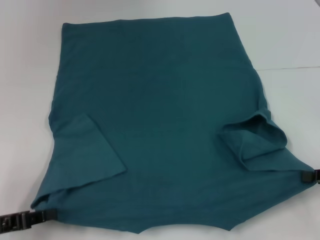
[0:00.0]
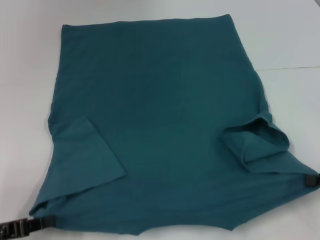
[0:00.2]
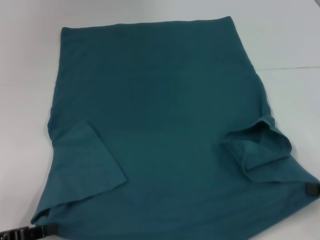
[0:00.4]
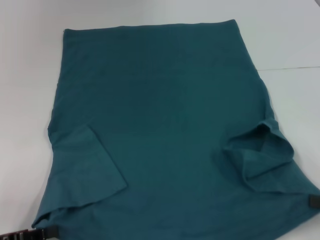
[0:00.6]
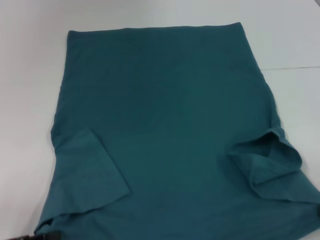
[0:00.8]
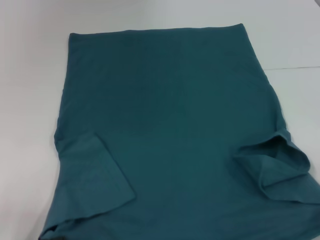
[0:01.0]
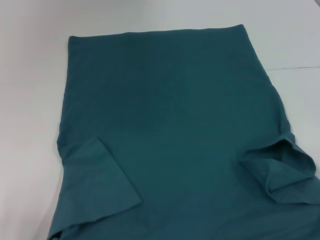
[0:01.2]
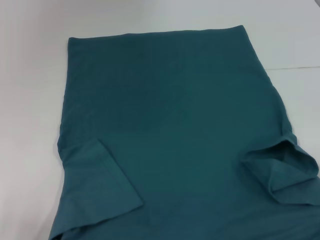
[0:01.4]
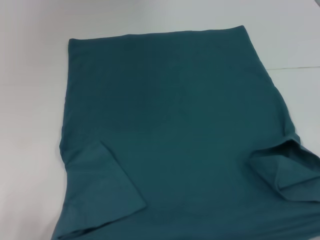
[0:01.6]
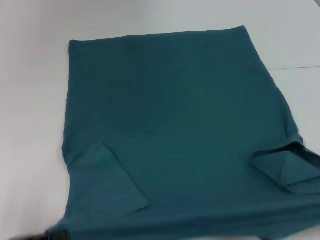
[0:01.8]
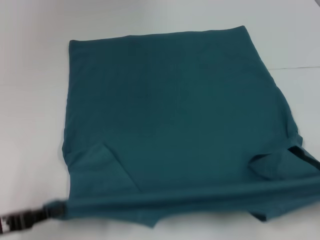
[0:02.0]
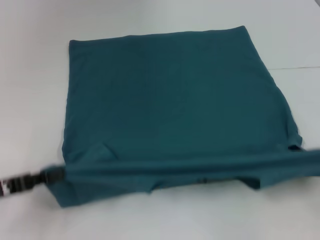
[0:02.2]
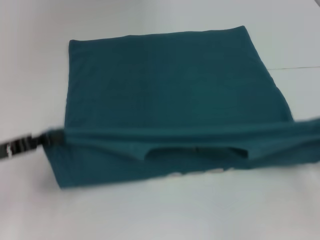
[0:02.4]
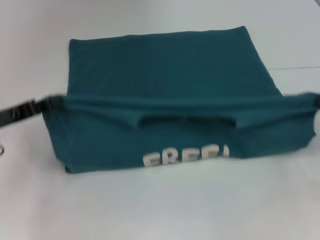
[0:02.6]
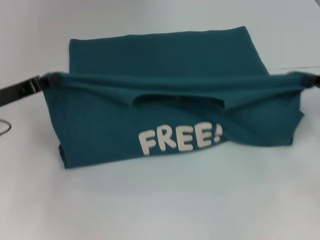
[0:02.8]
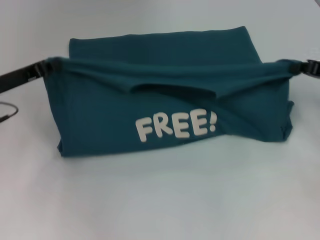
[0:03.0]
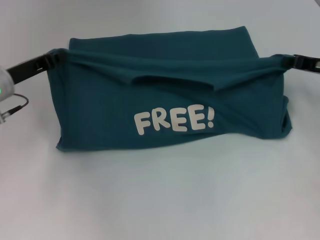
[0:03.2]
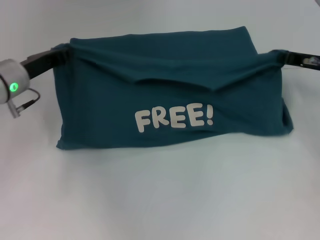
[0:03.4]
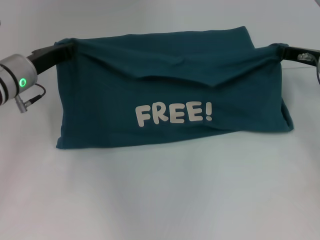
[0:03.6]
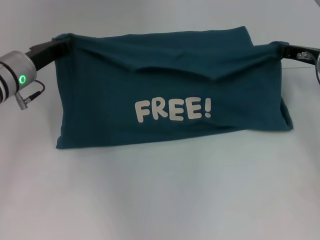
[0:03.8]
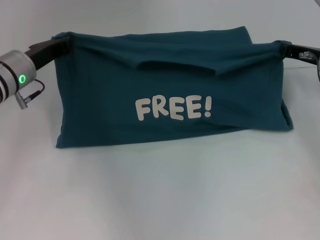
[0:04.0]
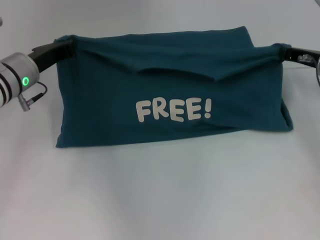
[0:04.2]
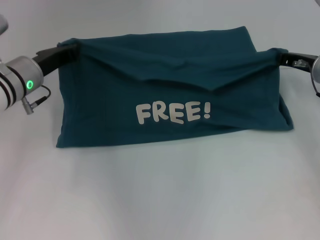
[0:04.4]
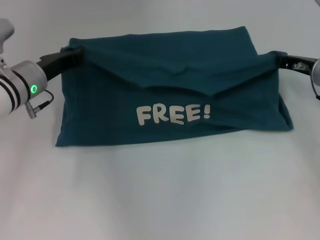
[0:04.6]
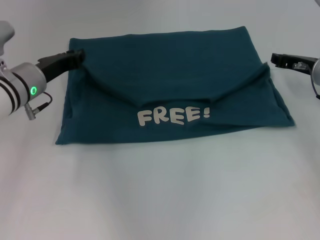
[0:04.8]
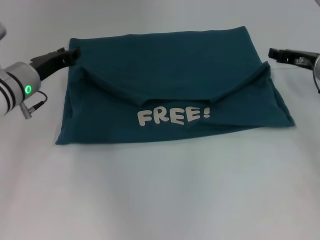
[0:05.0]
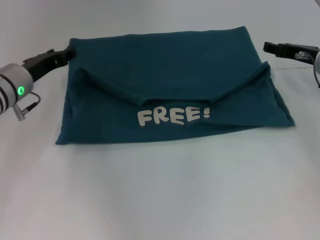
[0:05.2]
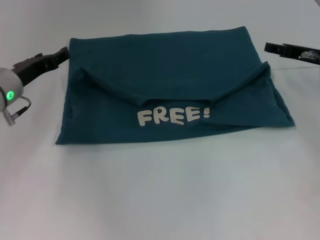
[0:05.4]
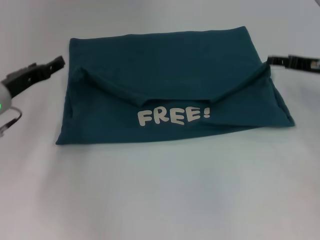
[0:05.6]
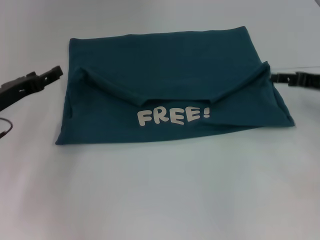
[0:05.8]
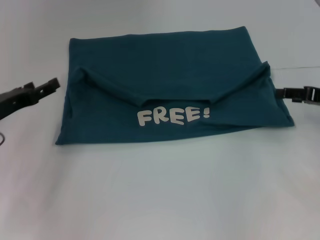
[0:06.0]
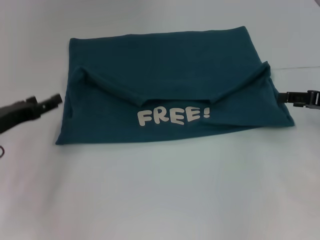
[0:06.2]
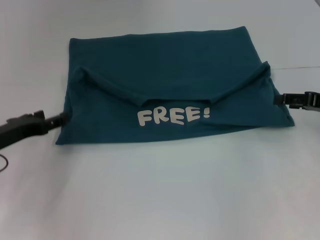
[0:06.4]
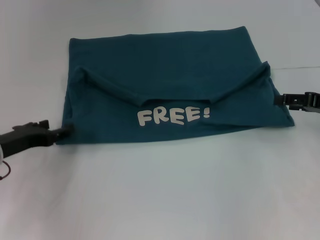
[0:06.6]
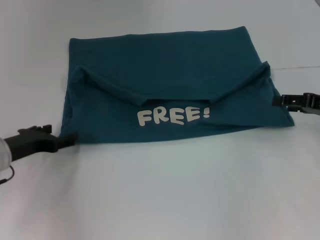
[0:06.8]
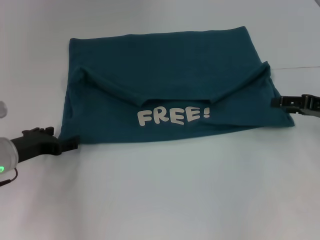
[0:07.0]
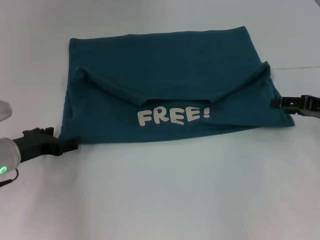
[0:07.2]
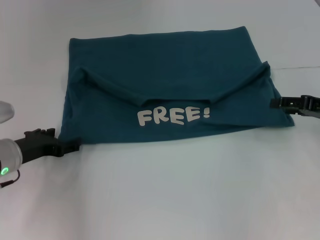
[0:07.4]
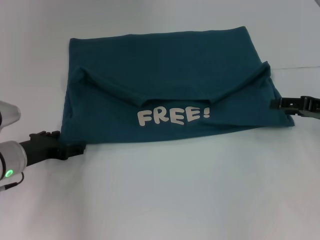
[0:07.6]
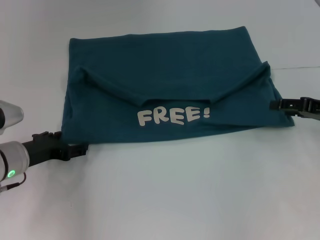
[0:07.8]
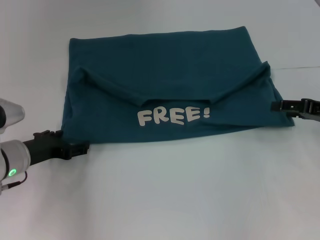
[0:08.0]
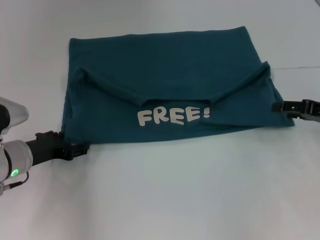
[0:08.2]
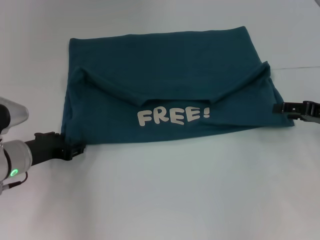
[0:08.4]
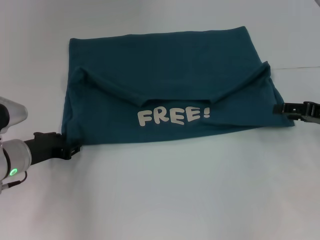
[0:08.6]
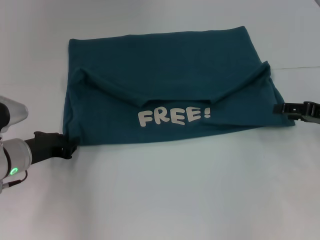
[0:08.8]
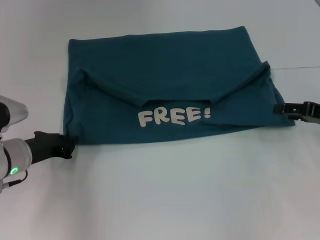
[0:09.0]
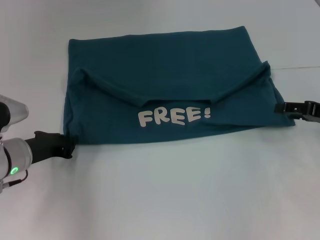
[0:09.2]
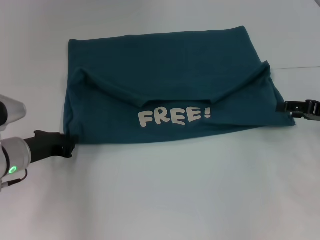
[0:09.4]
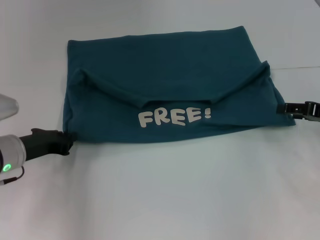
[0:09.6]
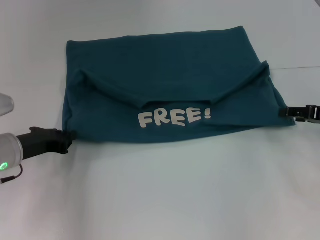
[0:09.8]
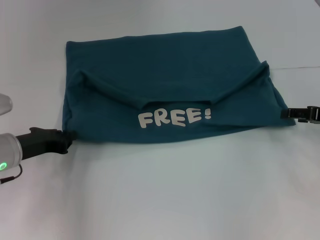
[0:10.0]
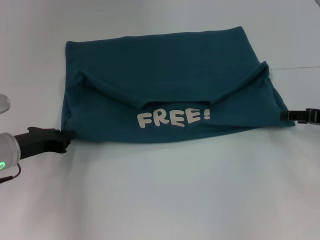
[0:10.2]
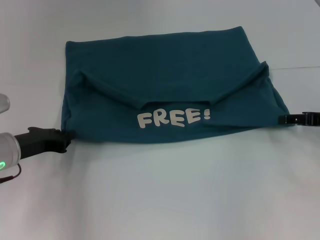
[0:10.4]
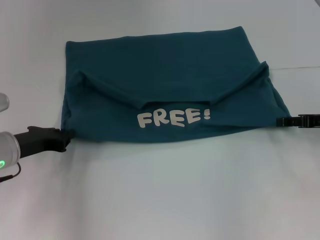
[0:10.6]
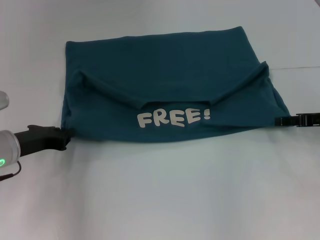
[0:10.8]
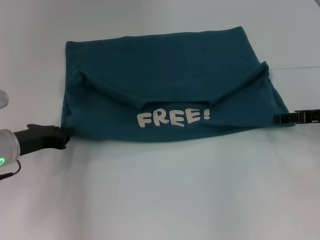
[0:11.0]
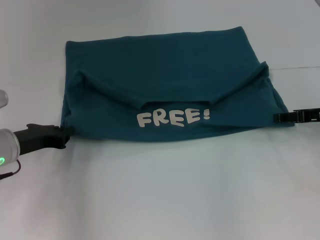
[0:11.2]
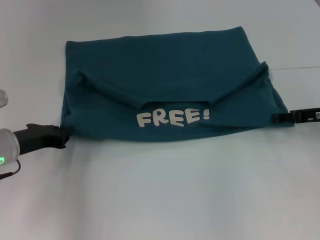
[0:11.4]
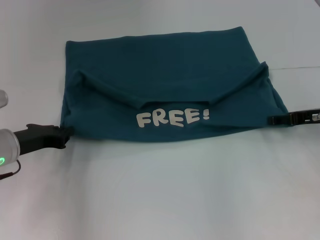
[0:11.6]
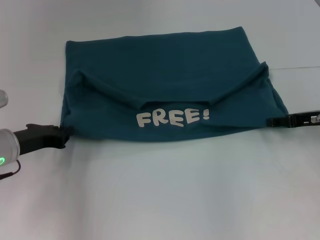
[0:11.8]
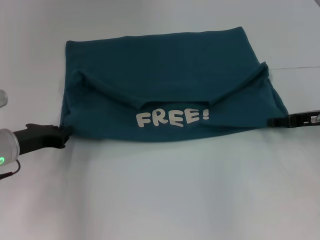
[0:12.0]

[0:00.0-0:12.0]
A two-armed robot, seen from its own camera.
Step, 0:00.0 to 0:05.0: Fold the clothes to the left.
Step, 0:00.0 to 0:05.0: Fold the clothes to the right.
0:00.0 to 0:01.6: The right gripper goes approximately 10 cm backward, while the left gripper moves backward, roughly 5 cm.
0:01.6 to 0:03.0: The left gripper goes about 25 cm forward and upward, while the right gripper is displaced forward by some 20 cm.
0:03.0 to 0:04.4: The right gripper is displaced to the left by some 5 cm; the left gripper moves to the right, some 5 cm.
0:04.4 to 0:06.0: The left gripper travels to the left and backward by approximately 10 cm, and opens, while the right gripper goes roughly 10 cm backward and to the right, and opens its fingers.
0:06.0 to 0:07.6: The left gripper ends up roughly 5 cm from where it was.
0:07.6 to 0:09.0: The left gripper closes up.
0:09.0 to 0:10.4: The grippers stay close to where they were, moving slightly.
0:10.4 to 0:12.0: There are only small adjustments of the grippers.

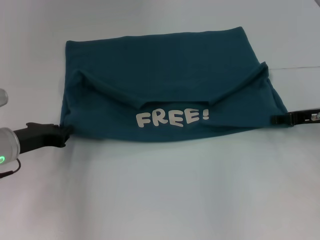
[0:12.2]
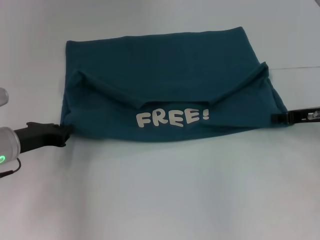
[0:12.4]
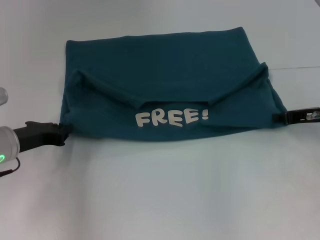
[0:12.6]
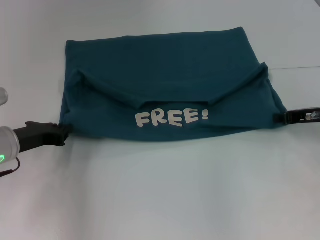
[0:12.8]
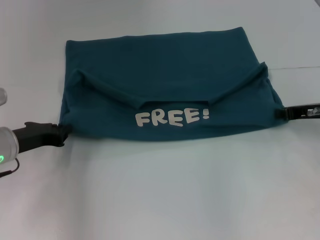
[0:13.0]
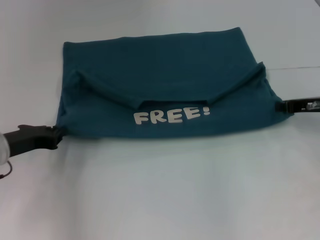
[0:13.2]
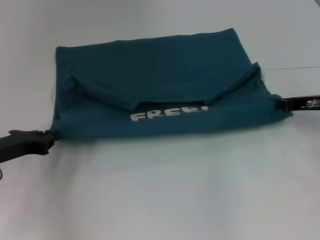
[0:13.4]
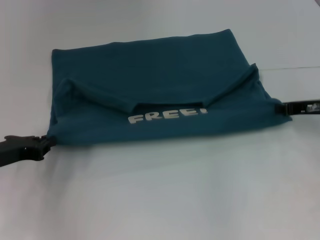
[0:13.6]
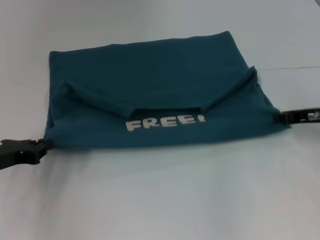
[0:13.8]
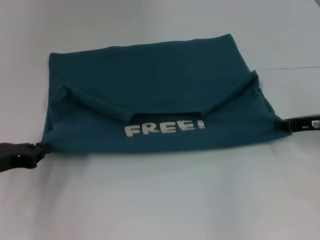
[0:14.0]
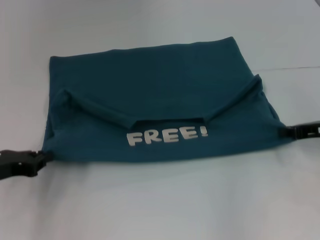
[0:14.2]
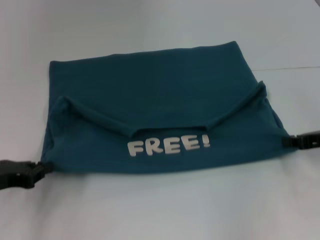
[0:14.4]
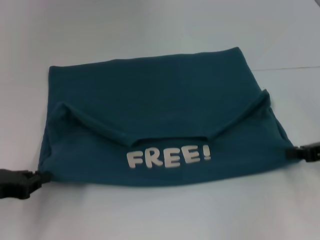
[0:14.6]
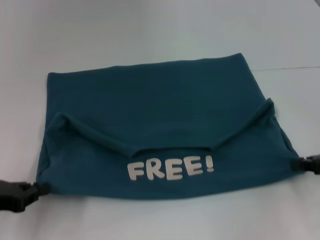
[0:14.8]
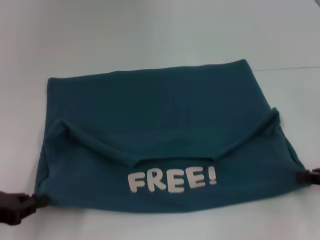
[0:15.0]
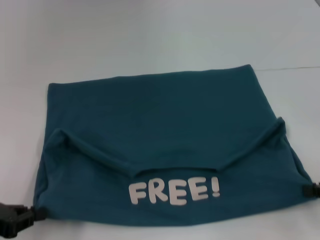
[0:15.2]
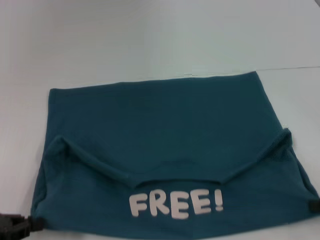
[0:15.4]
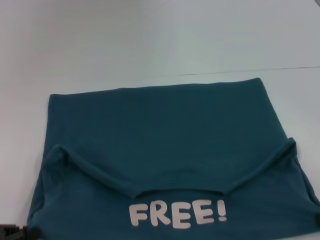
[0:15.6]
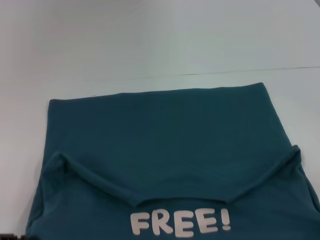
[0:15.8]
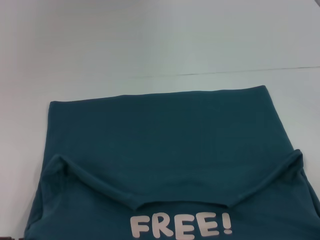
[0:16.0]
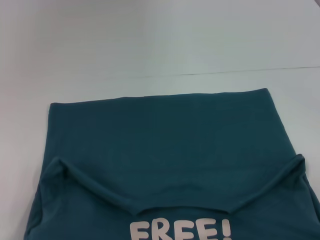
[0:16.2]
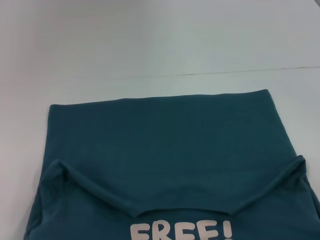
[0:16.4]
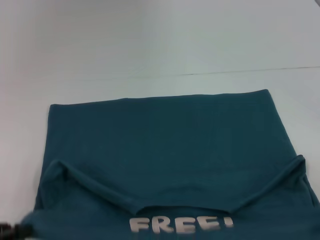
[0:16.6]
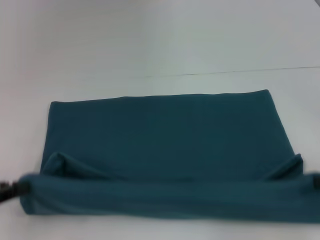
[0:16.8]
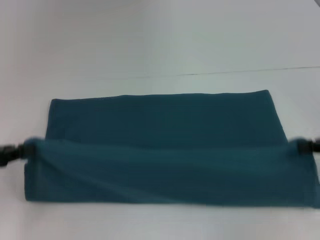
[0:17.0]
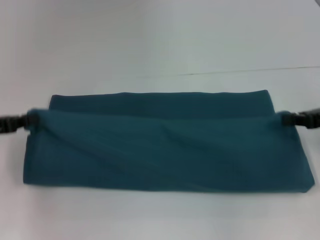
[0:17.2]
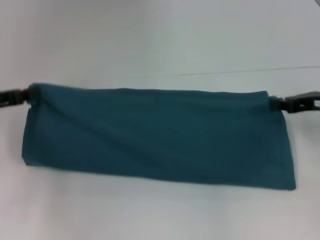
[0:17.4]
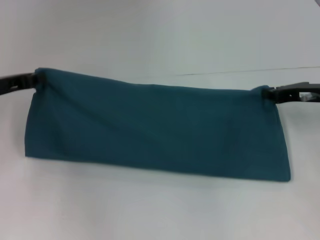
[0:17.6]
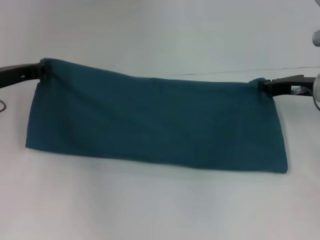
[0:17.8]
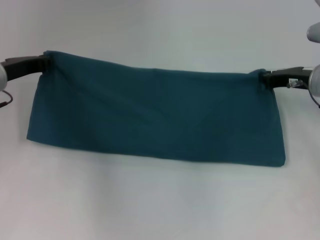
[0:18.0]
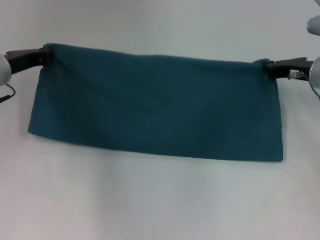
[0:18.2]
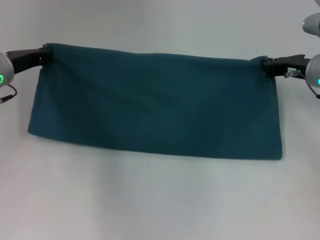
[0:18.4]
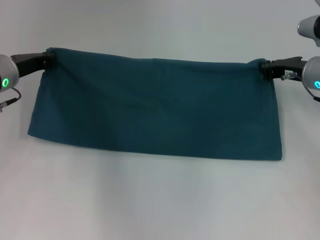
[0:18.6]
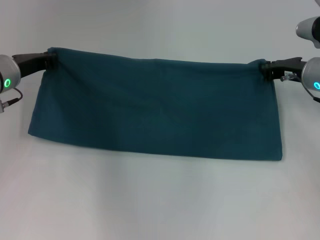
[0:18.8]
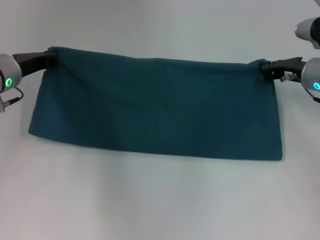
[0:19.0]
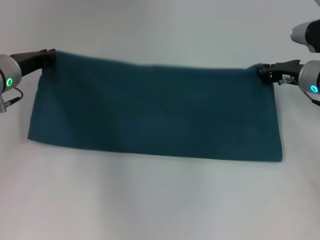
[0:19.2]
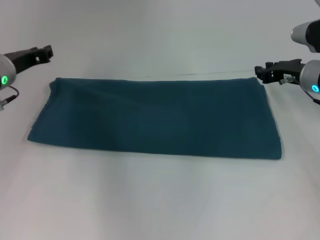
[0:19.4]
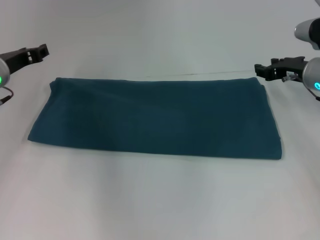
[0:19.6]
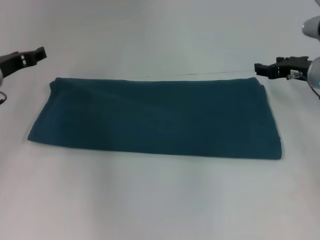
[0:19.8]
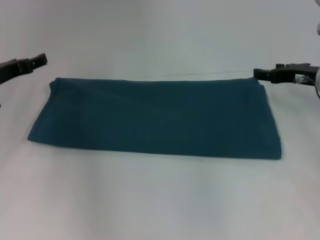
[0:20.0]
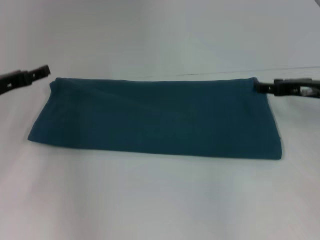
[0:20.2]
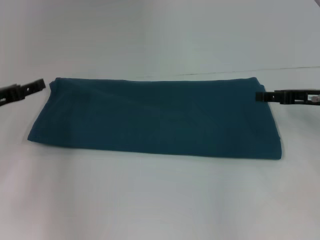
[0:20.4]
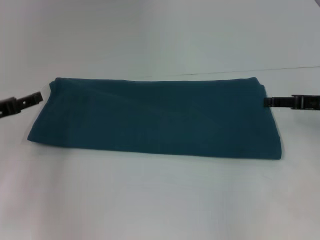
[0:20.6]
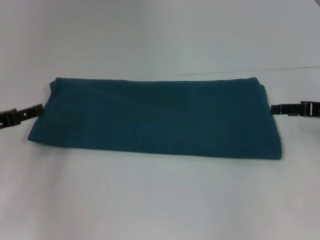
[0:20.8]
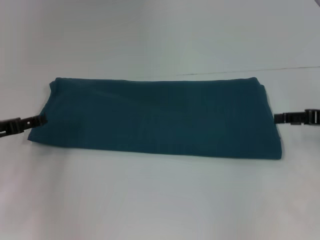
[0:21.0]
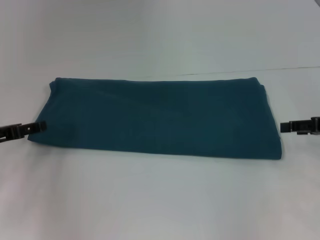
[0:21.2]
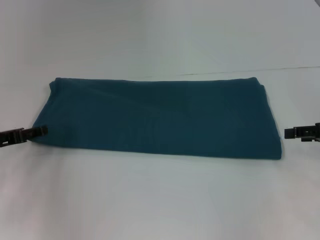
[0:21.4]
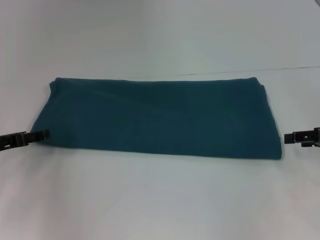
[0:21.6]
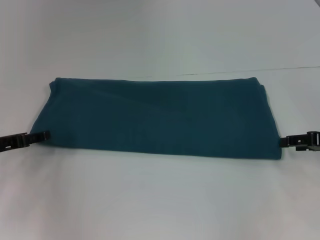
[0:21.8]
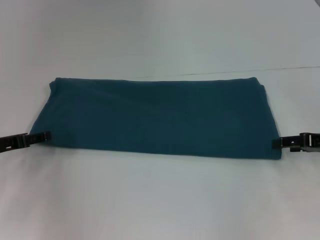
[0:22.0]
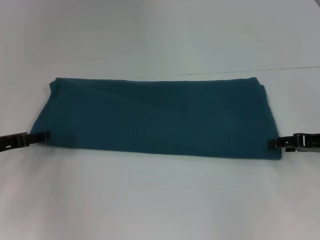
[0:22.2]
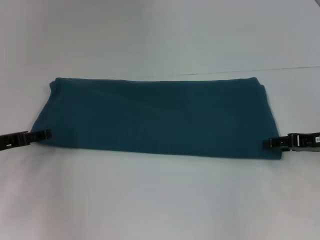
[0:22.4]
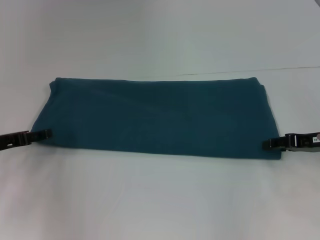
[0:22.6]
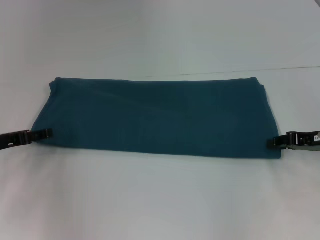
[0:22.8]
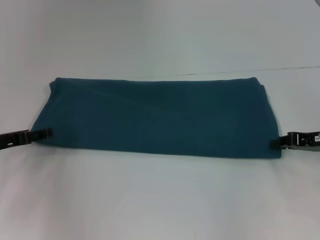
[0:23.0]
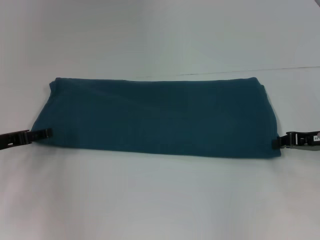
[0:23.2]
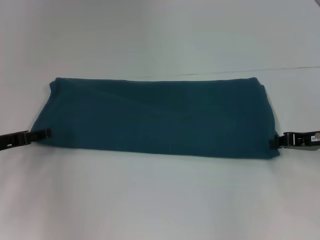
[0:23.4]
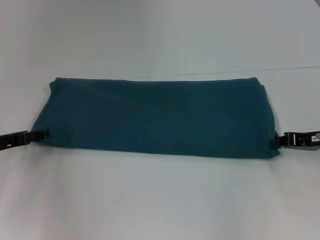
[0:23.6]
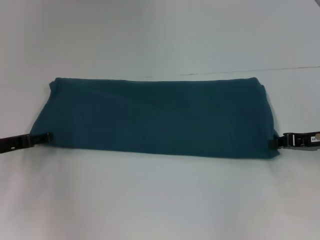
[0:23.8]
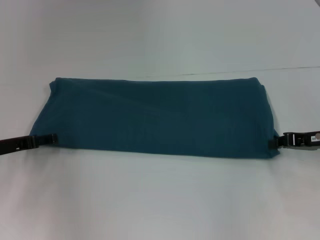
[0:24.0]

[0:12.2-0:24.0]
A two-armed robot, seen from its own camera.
Step, 0:12.2 to 0:16.2: Pull the clothes with your left hand.
Step, 0:12.2 to 0:16.2: Pull the clothes with your right hand.
Step, 0:16.4 to 0:19.4: Fold the clothes to the right.
0:12.2 to 0:13.6: The right gripper closes.
0:13.6 to 0:15.2: The right gripper heads backward, covering some 15 cm; the left gripper travels backward by approximately 10 cm.
0:15.2 to 0:16.6: The right gripper shifts about 5 cm backward.
0:16.6 to 0:18.2: The left gripper moves forward and to the right, some 25 cm. Meanwhile the right gripper shifts about 25 cm forward and to the left.
0:18.2 to 0:19.6: There are only small adjustments of the grippers.
0:19.6 to 0:21.0: The left gripper travels backward and to the left by roughly 10 cm, and opens its fingers; the right gripper is displaced backward and to the right by approximately 10 cm, and opens its fingers.
0:21.0 to 0:22.6: The grippers make only small movements.
0:22.6 to 0:24.0: The right gripper closes its fingers.
